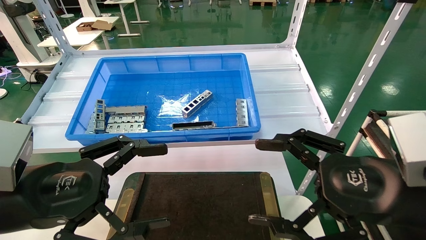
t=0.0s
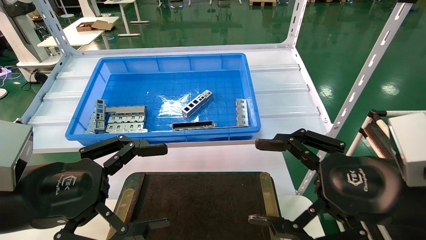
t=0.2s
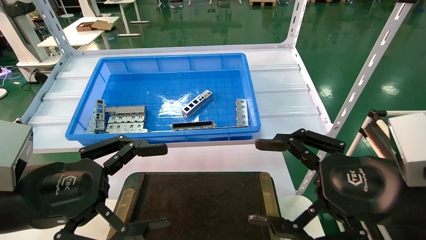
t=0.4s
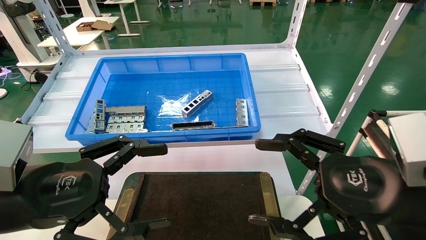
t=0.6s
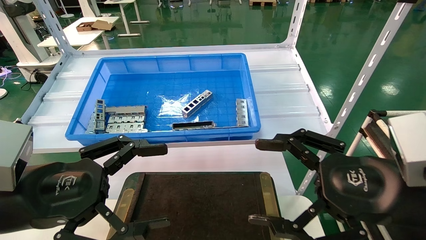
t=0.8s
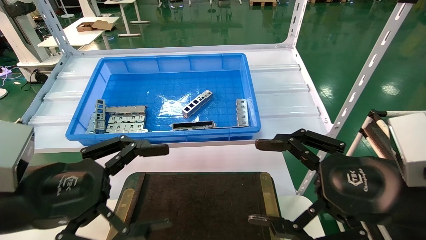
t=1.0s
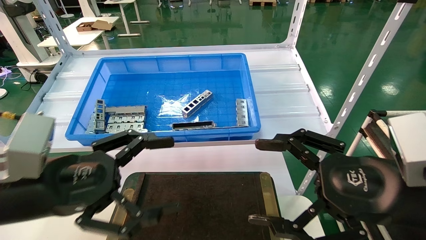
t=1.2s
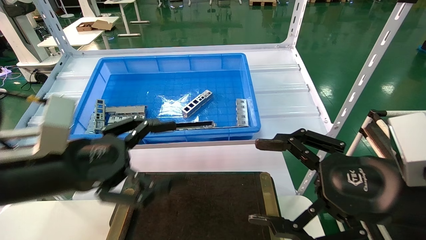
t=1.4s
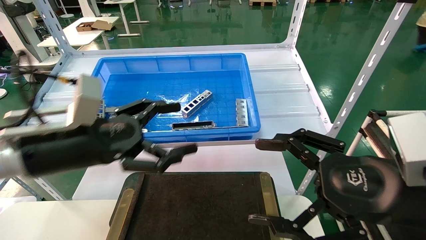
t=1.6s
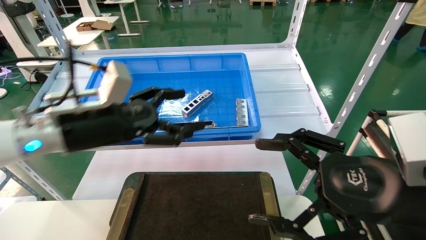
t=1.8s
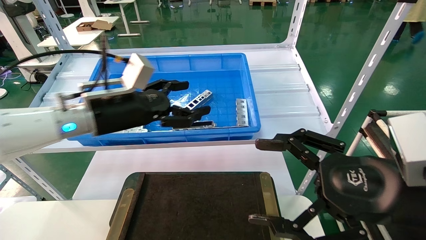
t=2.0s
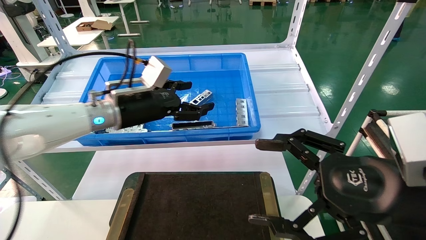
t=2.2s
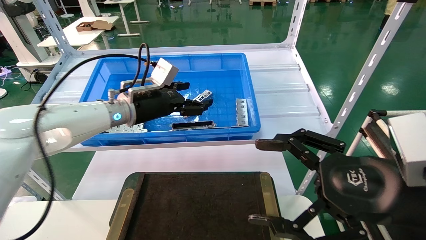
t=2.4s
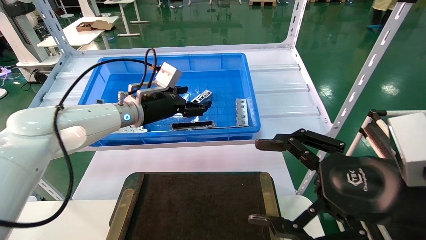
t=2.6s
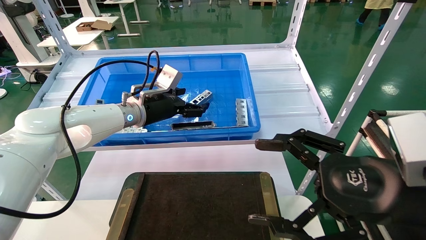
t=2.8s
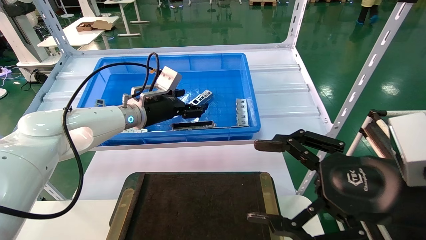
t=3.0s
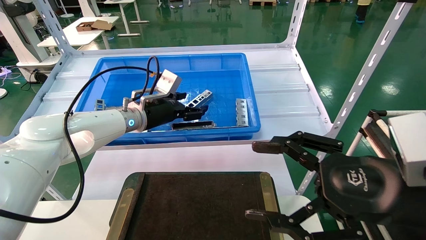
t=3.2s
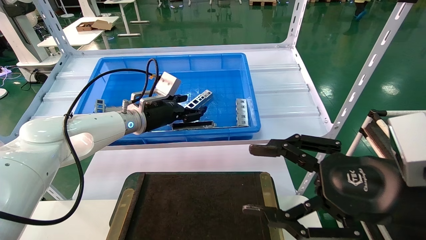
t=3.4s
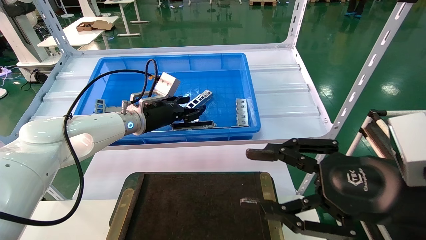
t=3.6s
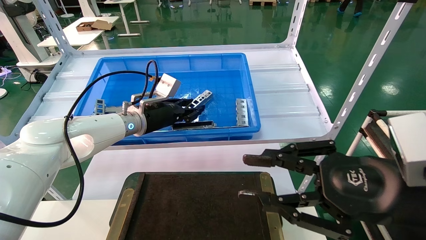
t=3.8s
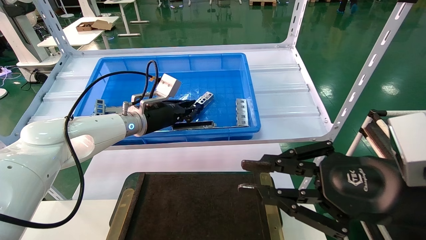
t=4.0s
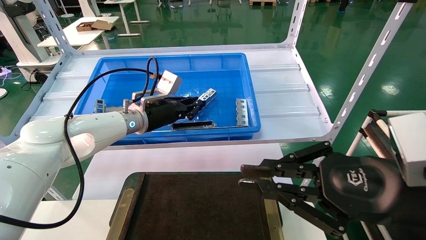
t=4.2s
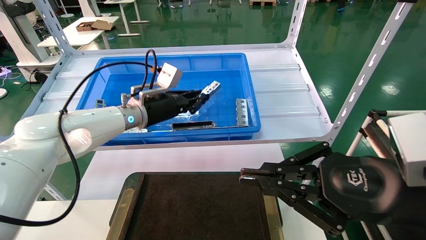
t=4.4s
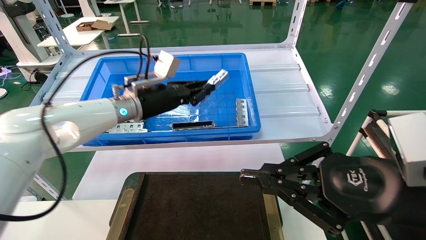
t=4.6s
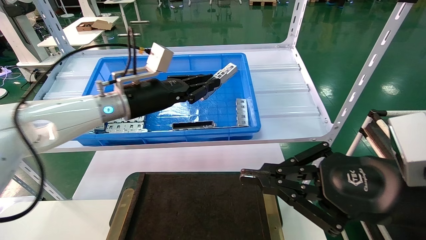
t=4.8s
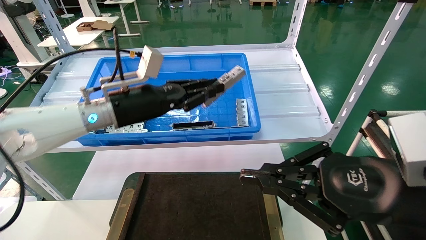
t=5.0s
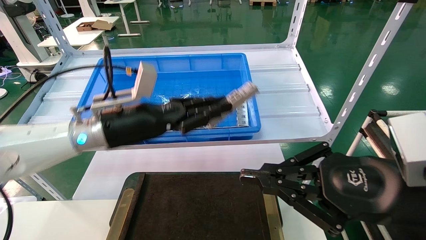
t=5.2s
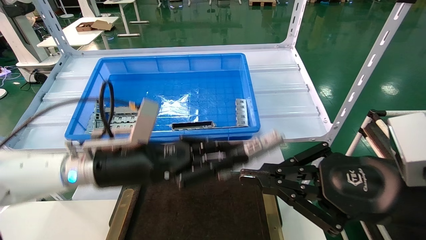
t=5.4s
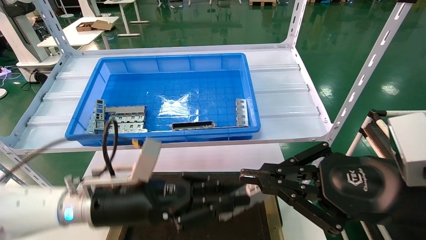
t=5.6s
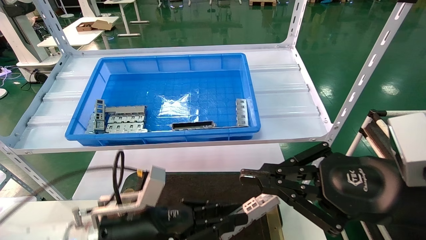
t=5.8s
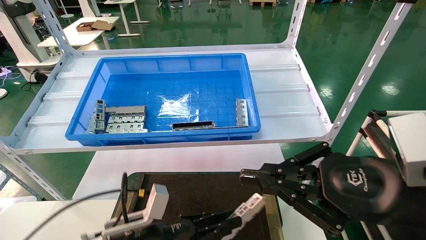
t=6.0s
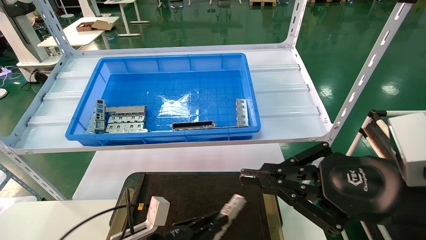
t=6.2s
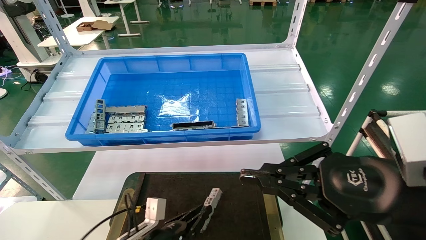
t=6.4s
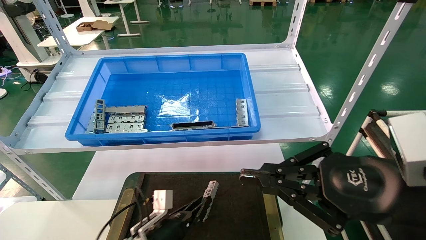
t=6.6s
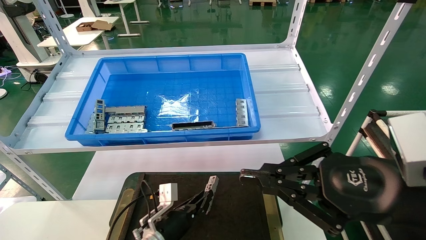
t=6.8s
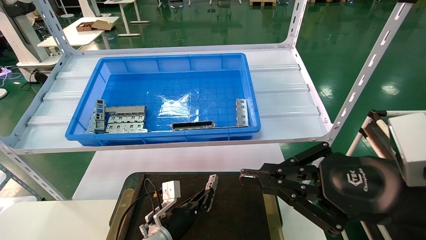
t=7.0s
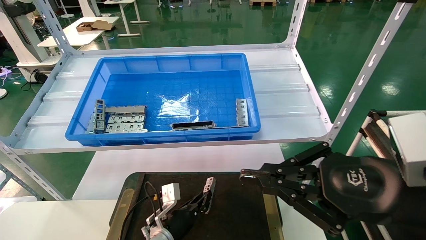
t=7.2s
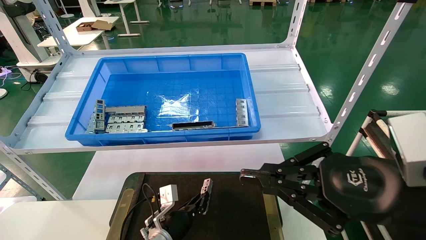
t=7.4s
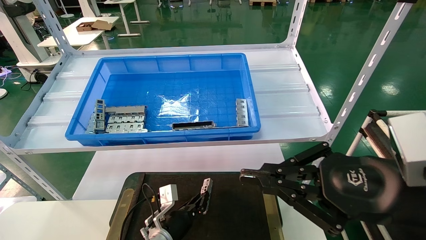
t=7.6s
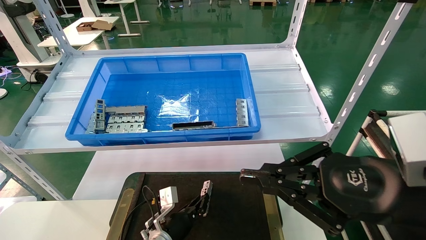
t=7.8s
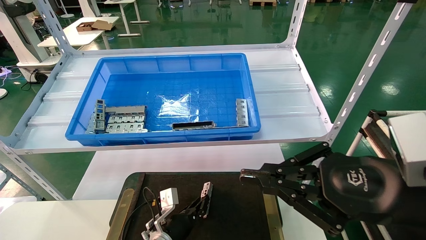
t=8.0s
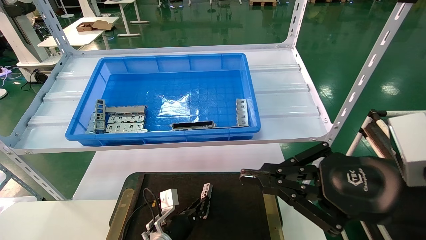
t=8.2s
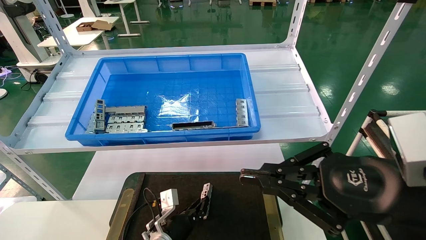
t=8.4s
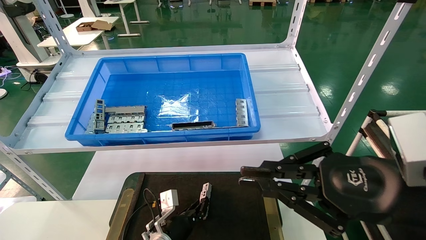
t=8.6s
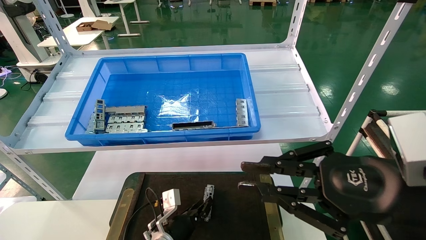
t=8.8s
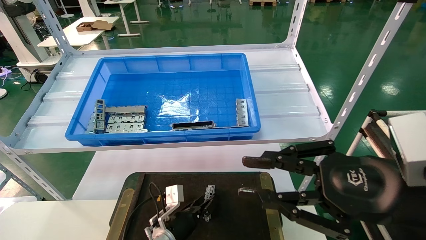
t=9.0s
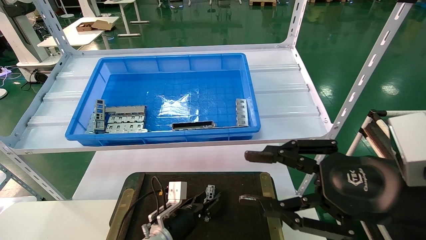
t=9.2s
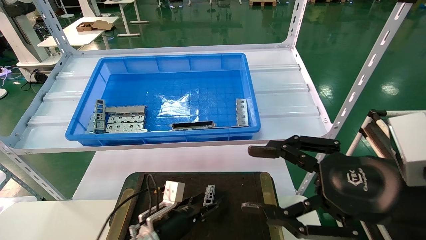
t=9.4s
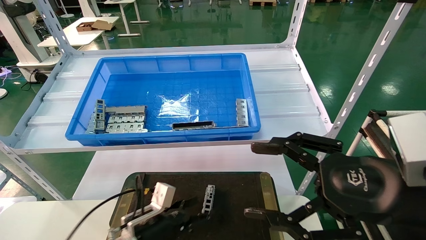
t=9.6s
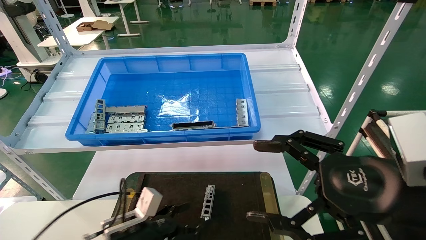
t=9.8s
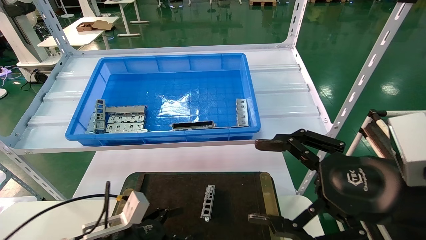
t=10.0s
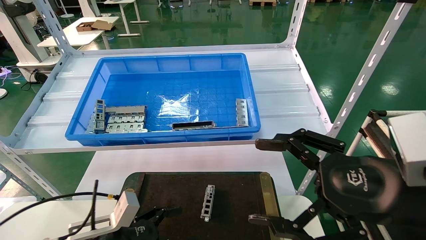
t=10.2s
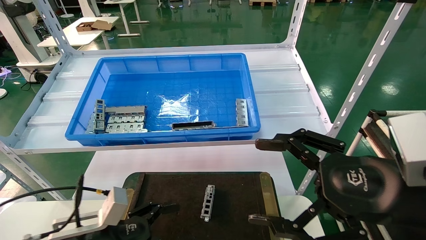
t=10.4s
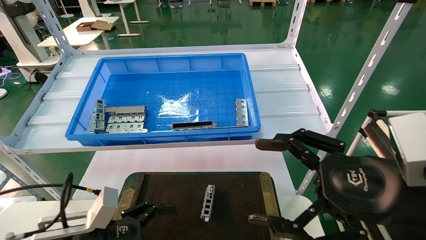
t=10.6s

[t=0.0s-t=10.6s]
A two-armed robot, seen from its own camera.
Task of the whole recording: Grasp the part with one hand and place it on the black container.
Step, t=1.4s to t=4.0s: Pick up the front USB bracket from the feeding area.
Step, t=4.2s to t=8.8s: Place the front USB bracket into the box.
t=0.0s to t=1.6s: The left gripper is displaced forward by some 10 cm.
t=1.6s to t=3.0s: The left gripper moves forward, about 20 cm.
t=3.0s to t=4.6s: The left gripper closes. Meanwhile the right gripper closes up.
t=4.6s to t=6.0s: The left gripper goes approximately 30 cm downward and backward.
t=6.0s to t=7.6s: The left gripper travels forward and downward by approximately 15 cm.
t=7.6s to t=9.0s: The grippers make only small movements.
t=9.0s to t=10.6s: The right gripper opens. Meanwhile the left gripper is displaced to the left, backward and upward by approximately 25 cm, and opens its fingers.

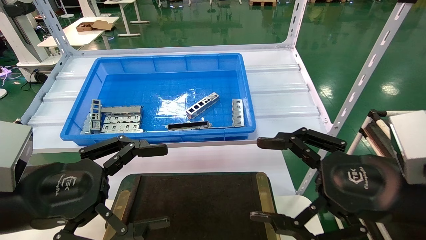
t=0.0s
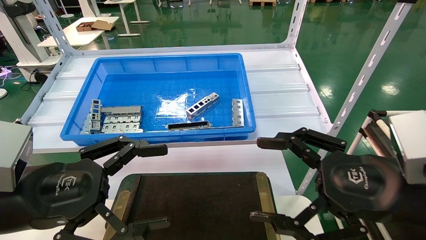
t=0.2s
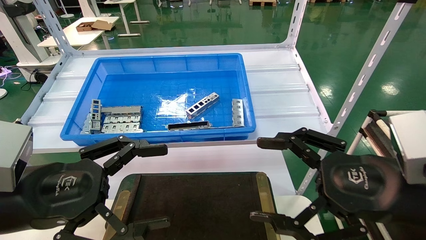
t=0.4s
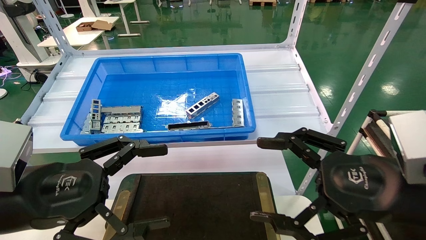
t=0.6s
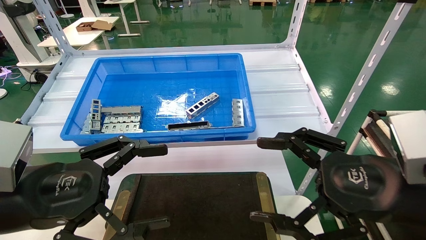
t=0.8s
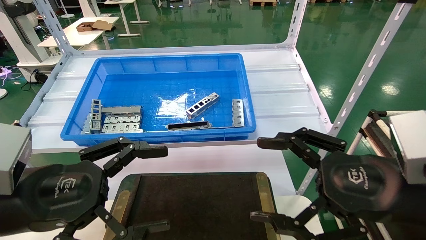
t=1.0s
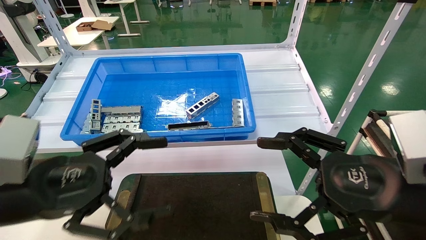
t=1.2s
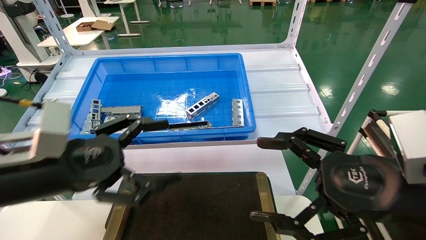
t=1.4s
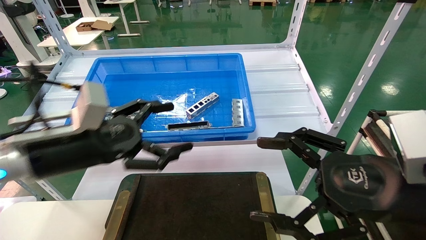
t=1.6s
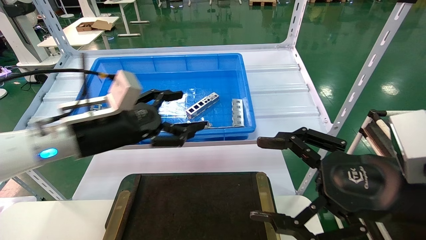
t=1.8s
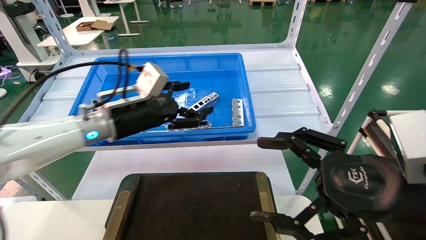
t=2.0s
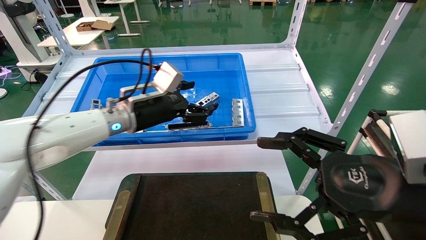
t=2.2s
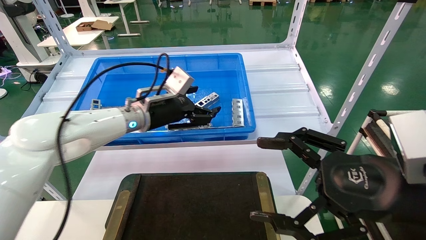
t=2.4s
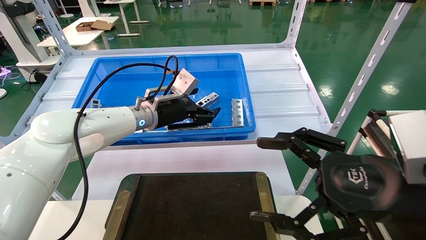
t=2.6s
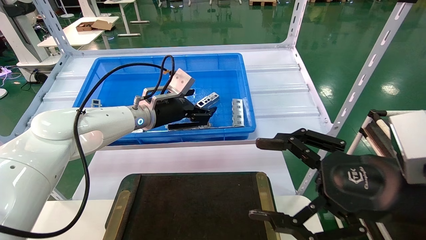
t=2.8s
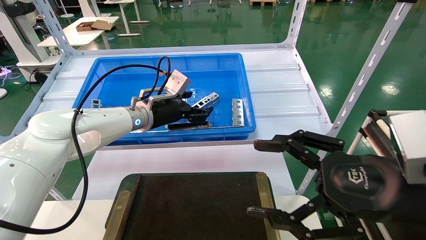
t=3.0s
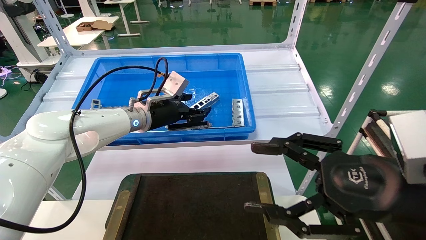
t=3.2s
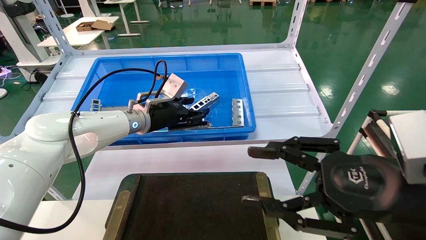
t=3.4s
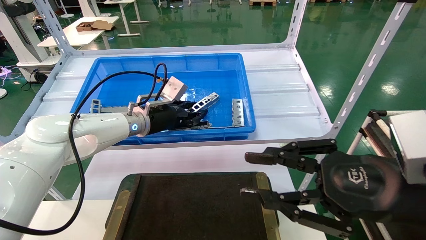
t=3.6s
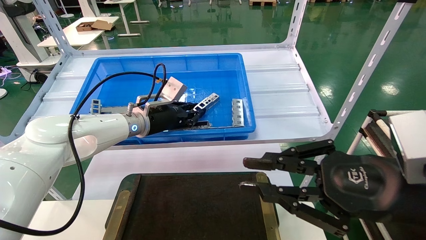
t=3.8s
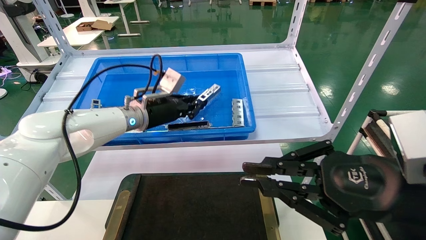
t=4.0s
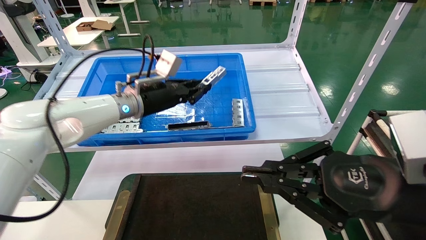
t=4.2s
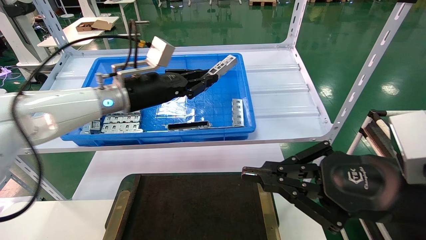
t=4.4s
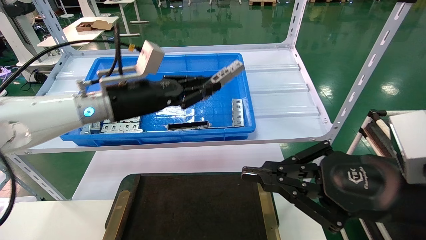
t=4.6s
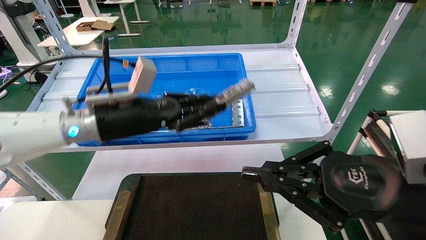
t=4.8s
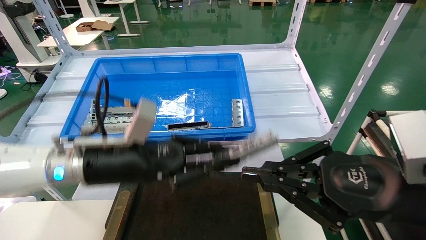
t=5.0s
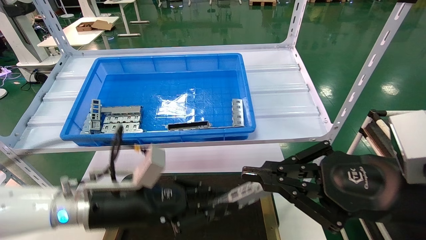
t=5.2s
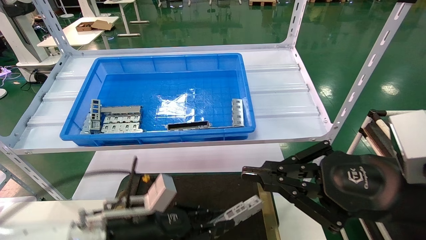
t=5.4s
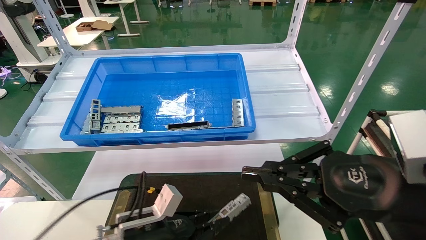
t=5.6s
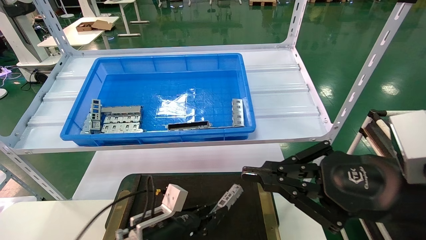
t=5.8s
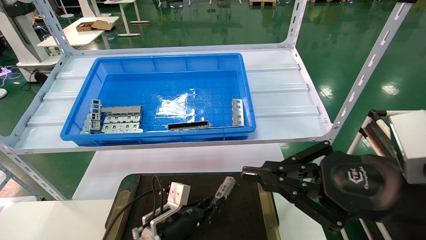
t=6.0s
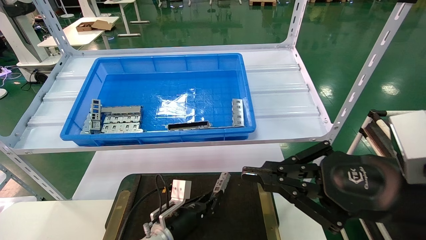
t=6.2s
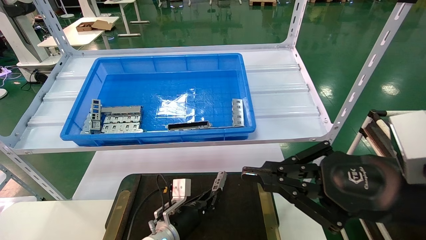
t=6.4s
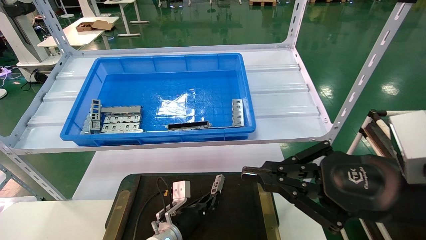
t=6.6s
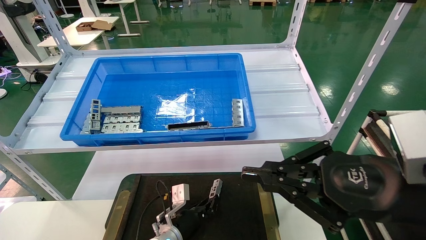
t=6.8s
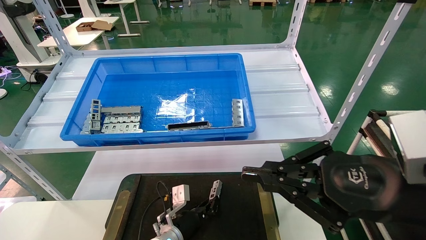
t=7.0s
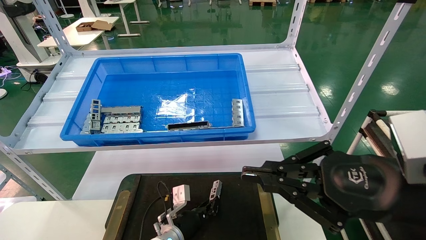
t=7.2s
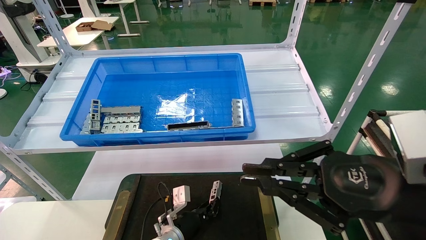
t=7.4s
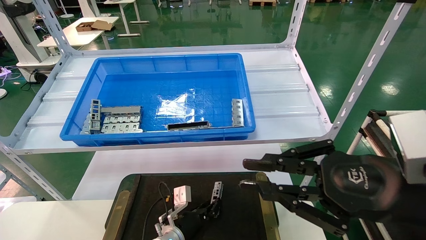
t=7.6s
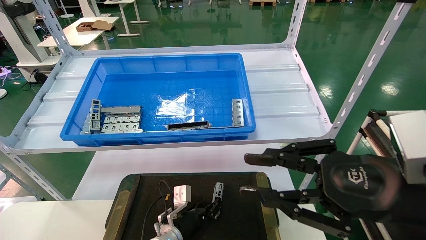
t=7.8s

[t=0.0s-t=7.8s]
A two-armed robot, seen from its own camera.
Task of the whole recording: Grasp the part with one hand and place it on the black container.
Step, t=1.4s to t=3.6s: Pick up the front USB bracket from the feeding area.
Step, t=3.8s to t=7.6s: Place the front USB bracket into the box.
t=0.0s to t=1.6s: The left gripper travels forward by approximately 10 cm.
t=1.6s to t=3.2s: The left gripper is displaced forward by about 20 cm.
t=3.2s to t=4.6s: The left gripper moves backward, some 10 cm, and closes, while the right gripper closes its fingers.
t=4.6s to t=6.2s: The left gripper is displaced downward by roughly 30 cm.
t=6.2s to t=7.8s: The grippers move only a little.
